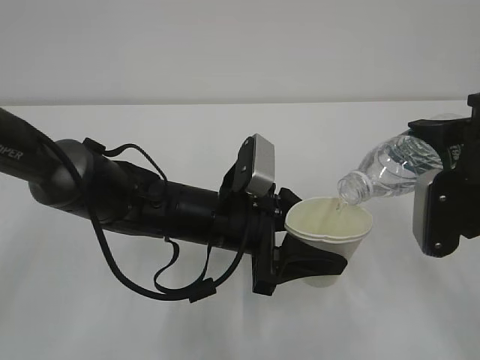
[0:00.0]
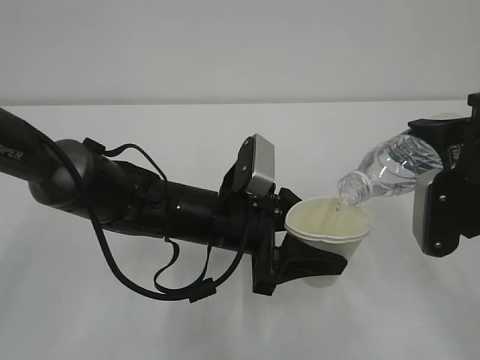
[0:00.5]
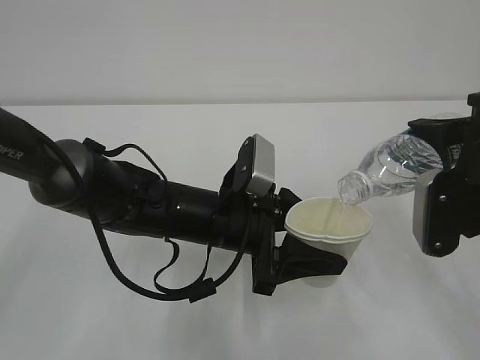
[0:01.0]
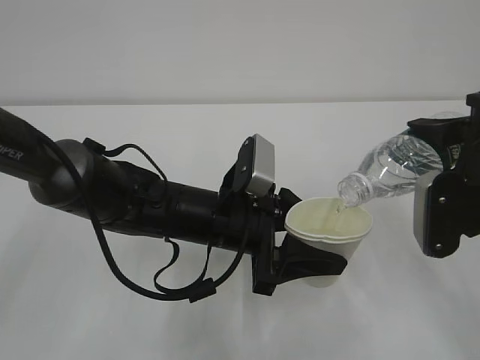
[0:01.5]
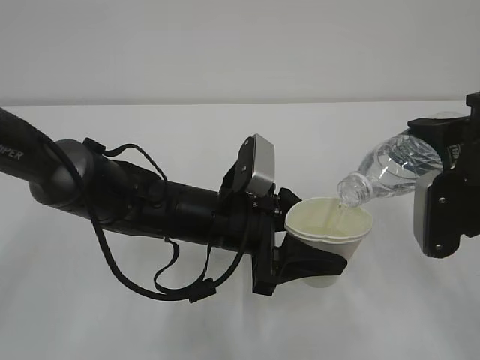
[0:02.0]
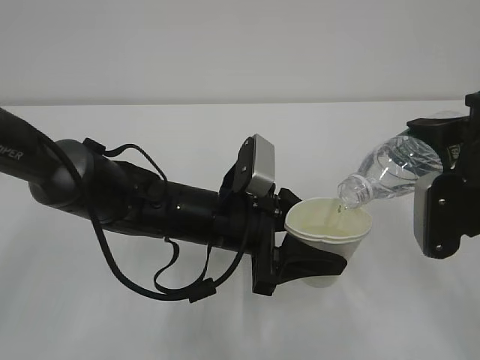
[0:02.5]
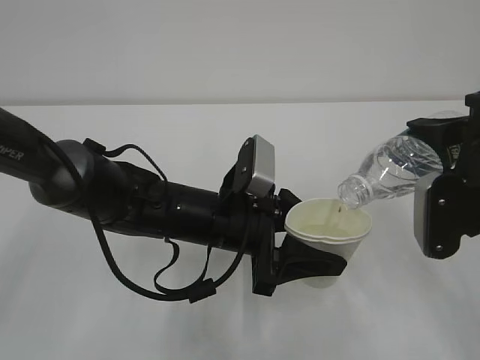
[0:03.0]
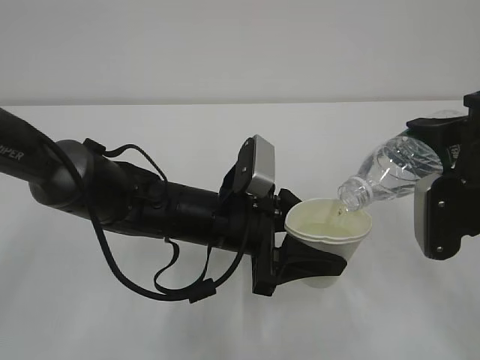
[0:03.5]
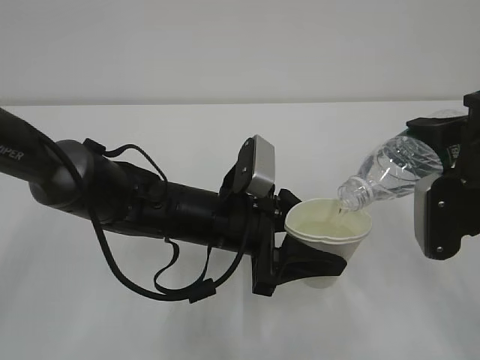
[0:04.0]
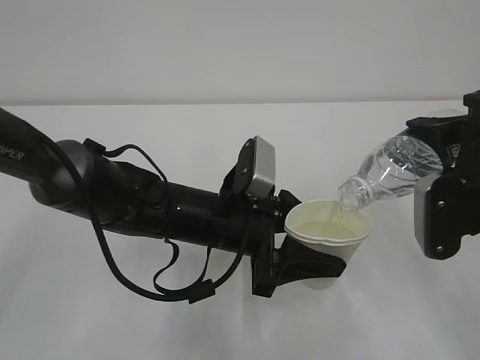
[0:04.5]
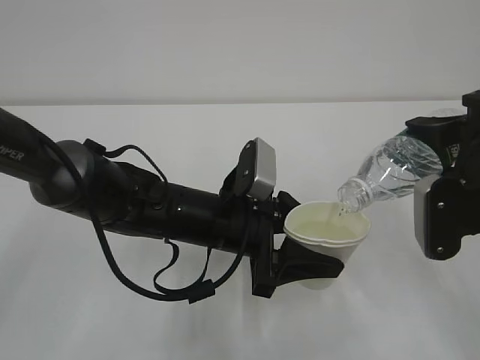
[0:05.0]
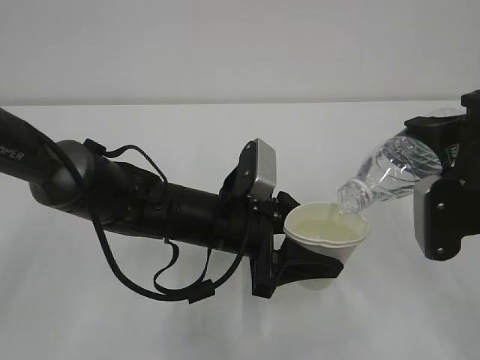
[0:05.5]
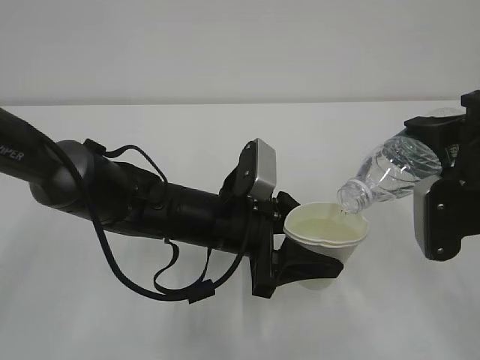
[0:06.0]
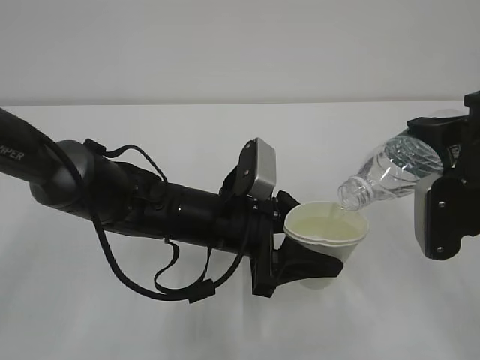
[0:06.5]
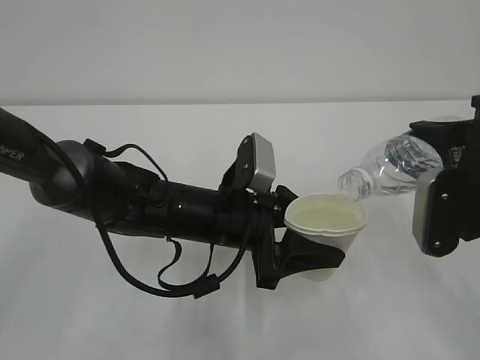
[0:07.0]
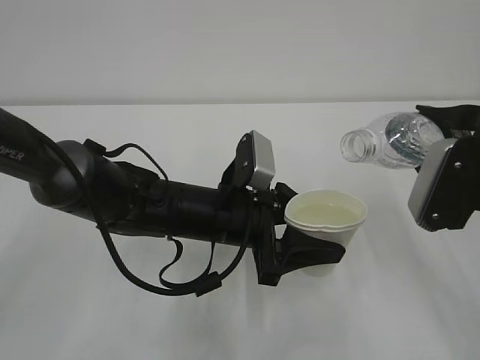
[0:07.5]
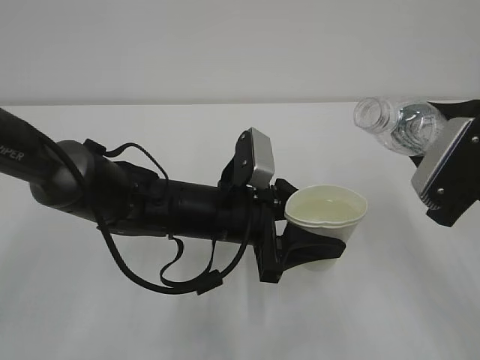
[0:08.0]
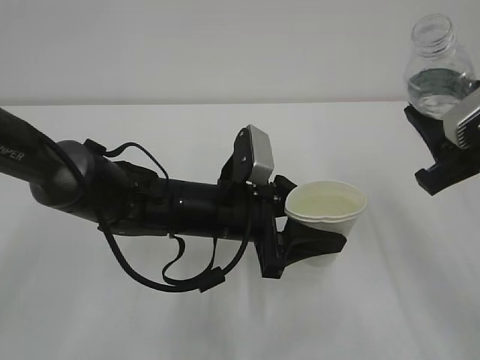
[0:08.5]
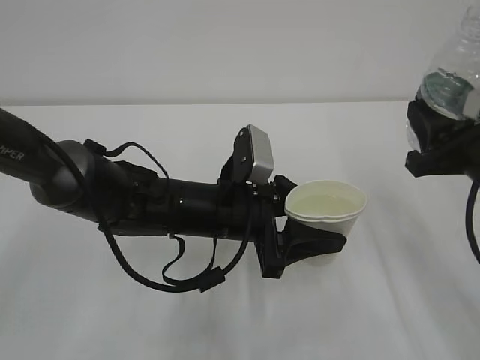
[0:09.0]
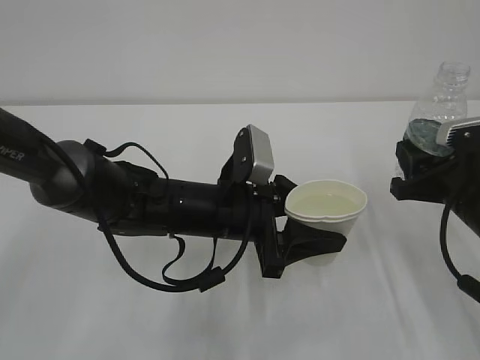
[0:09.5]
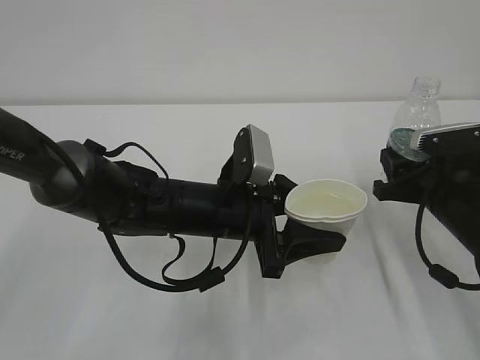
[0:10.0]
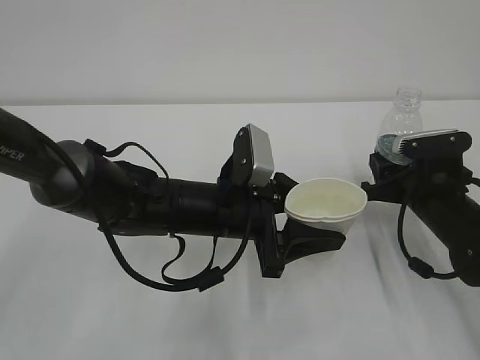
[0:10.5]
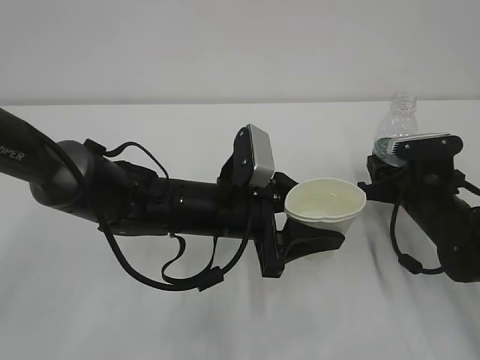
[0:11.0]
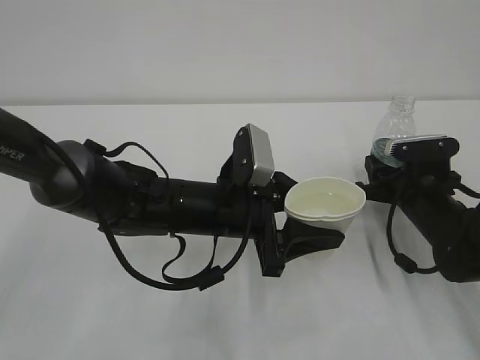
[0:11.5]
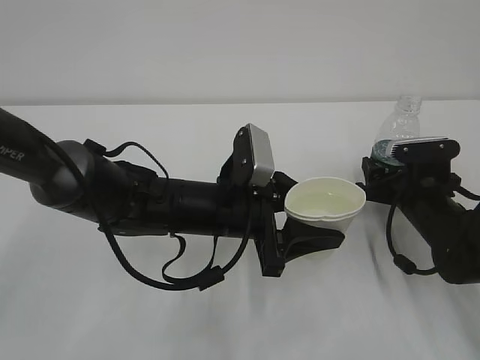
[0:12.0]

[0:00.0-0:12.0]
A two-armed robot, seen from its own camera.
0:00.0 to 0:04.0: The two grippers keep their place.
0:04.0 to 0:06.0: Neither gripper changes place.
0:08.0 to 0:10.0: The right gripper heads downward and forward, covering some 10 cm.
0:10.0 to 0:12.0: The right gripper moves about 5 cm, and opens up.

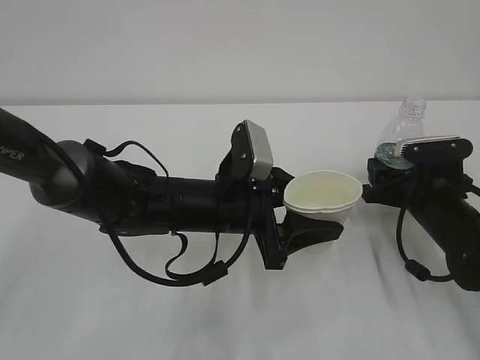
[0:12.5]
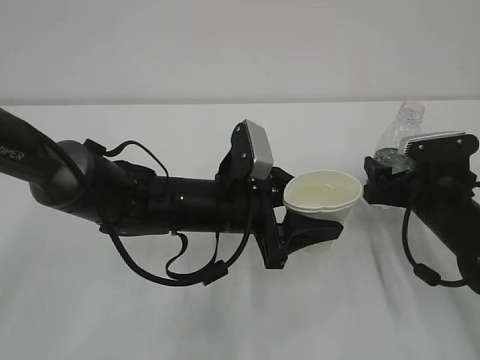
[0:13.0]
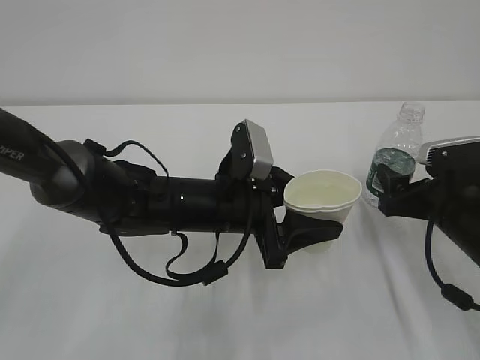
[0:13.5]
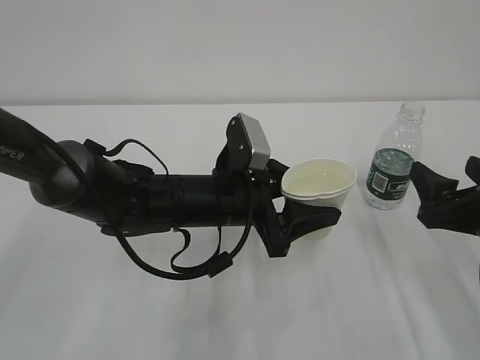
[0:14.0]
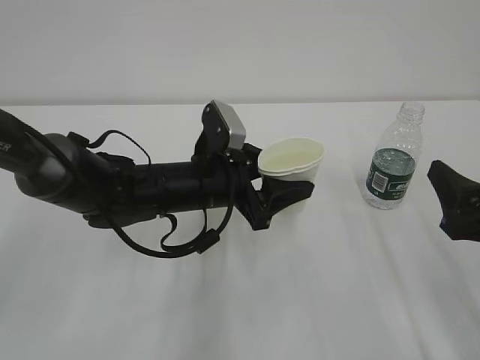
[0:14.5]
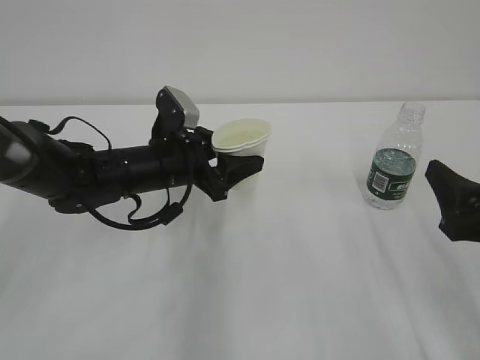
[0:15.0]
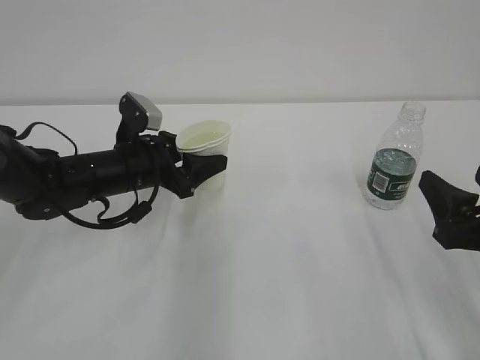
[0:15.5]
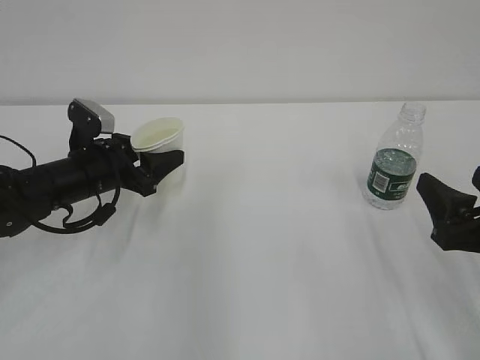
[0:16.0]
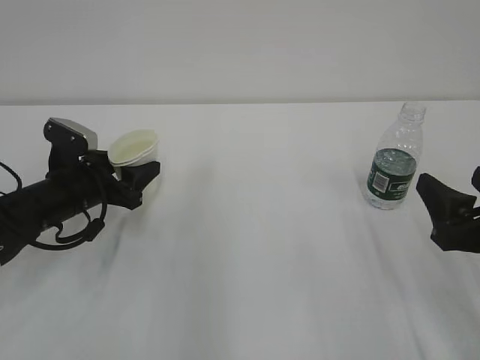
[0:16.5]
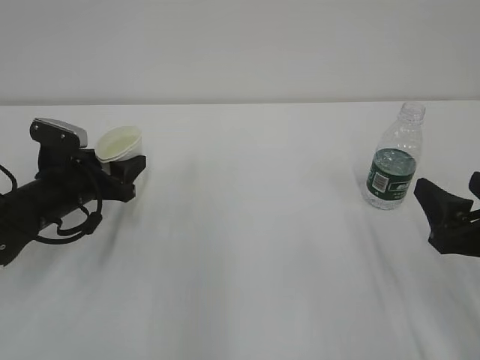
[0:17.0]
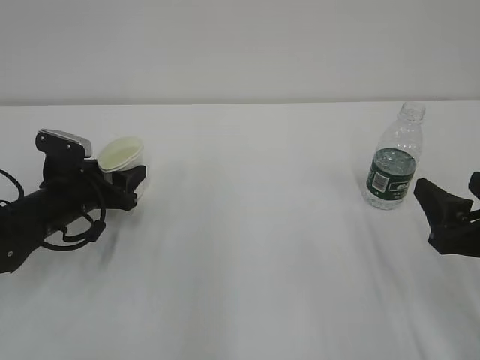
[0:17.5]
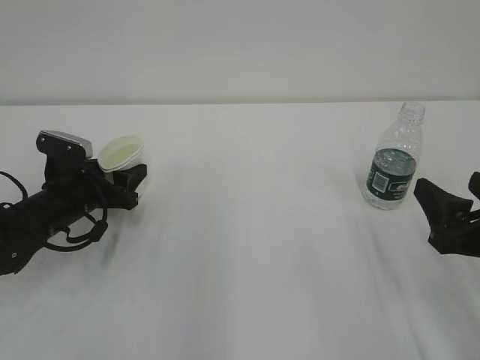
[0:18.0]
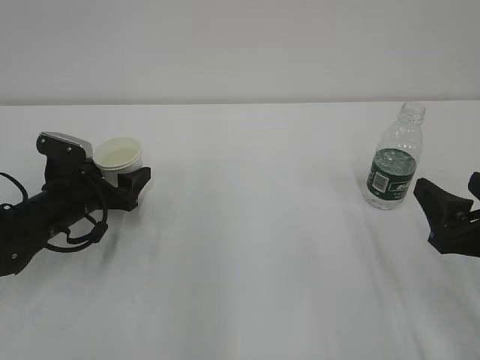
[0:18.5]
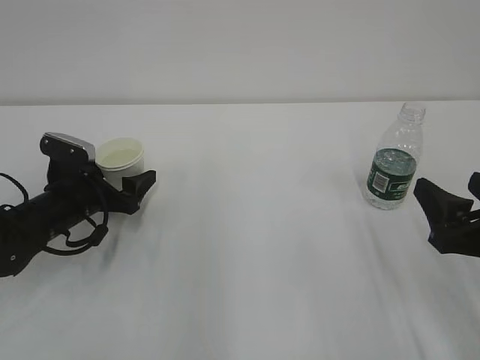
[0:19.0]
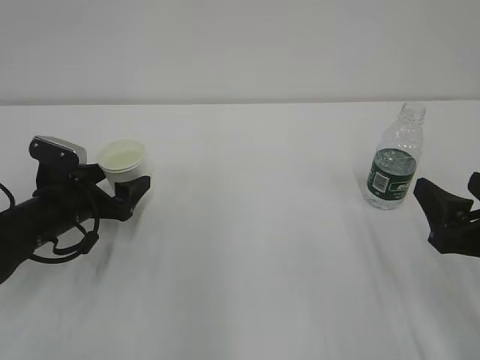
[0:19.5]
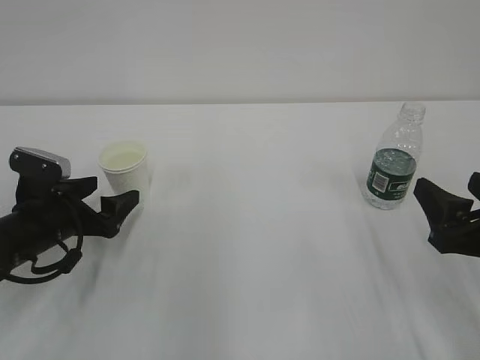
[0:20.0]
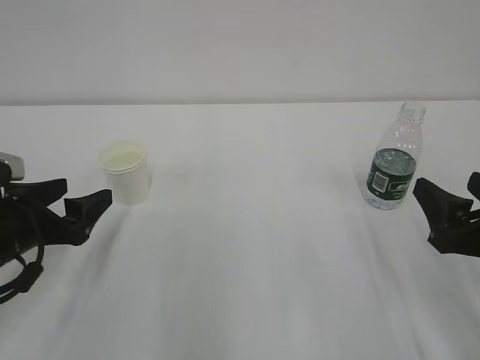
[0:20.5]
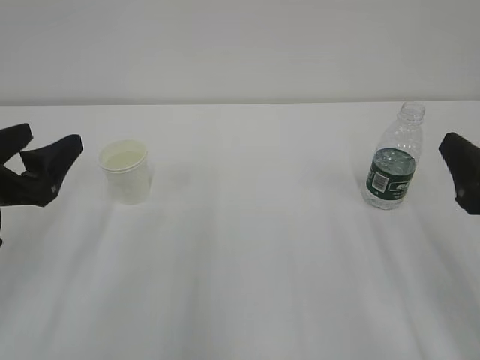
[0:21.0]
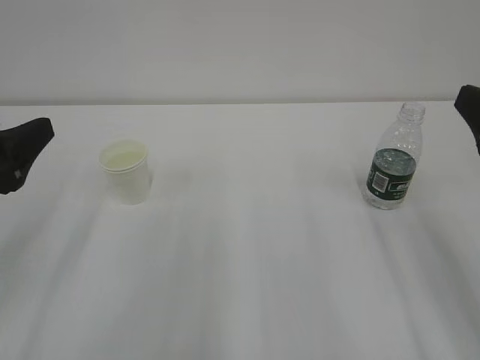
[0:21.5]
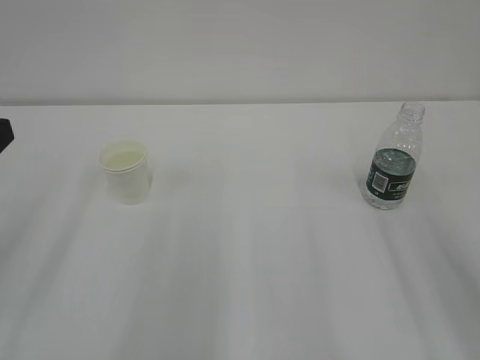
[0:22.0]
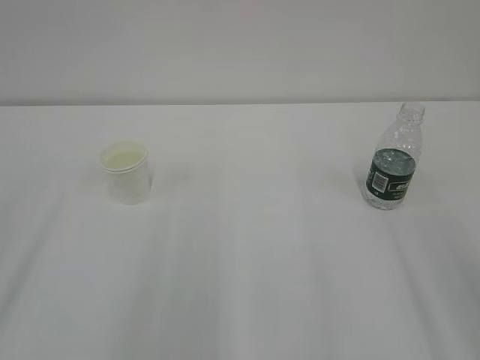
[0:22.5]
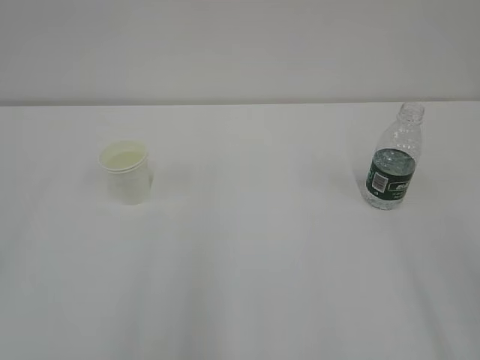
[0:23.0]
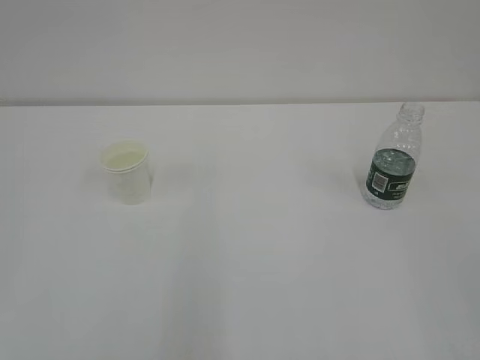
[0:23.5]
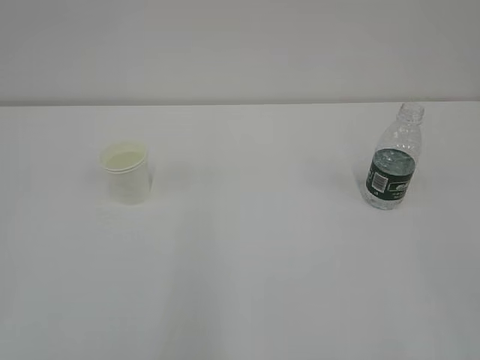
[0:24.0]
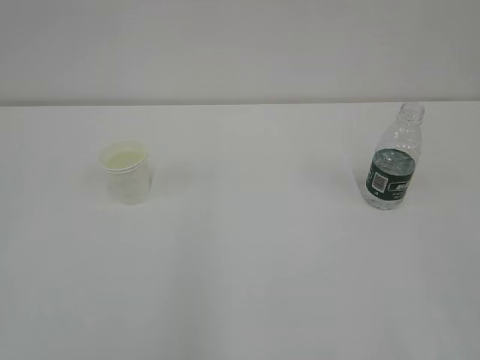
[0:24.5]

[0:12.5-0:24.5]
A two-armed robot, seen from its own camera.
0:12.5 to 0:14.5: The right gripper heads backward and upward, covering some 15 cm.
0:14.5 to 0:16.5: The left gripper moves to the left, approximately 15 cm.
0:16.5 to 0:18.5: The left gripper opens.
0:18.5 to 0:20.5: The left gripper heads backward and upward, covering approximately 10 cm.
0:20.5 to 0:22.5: Both grippers move upward and backward, roughly 20 cm.
